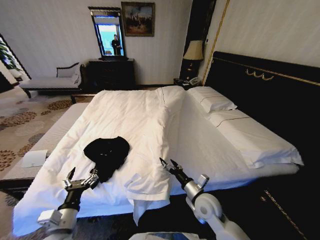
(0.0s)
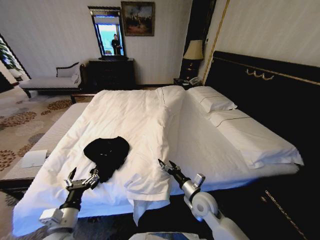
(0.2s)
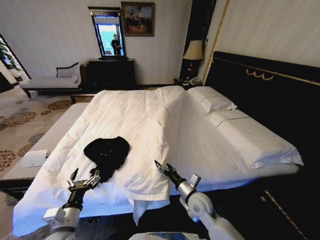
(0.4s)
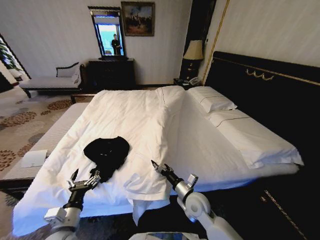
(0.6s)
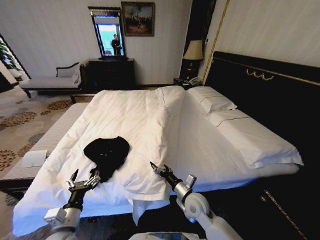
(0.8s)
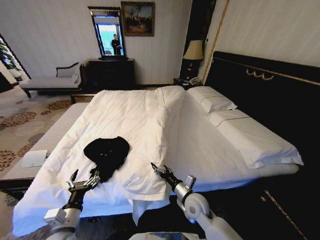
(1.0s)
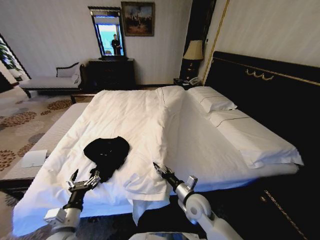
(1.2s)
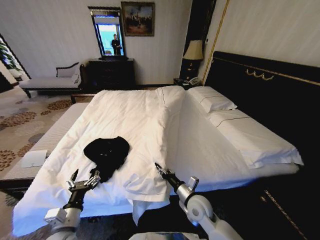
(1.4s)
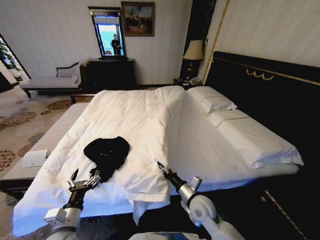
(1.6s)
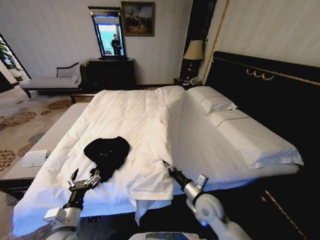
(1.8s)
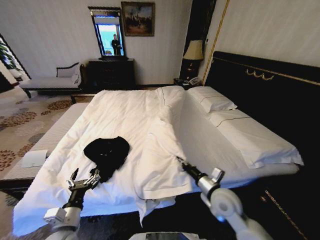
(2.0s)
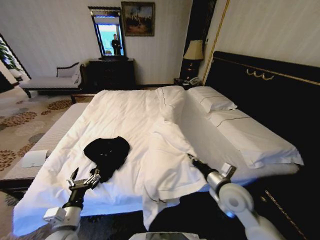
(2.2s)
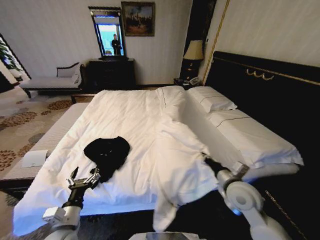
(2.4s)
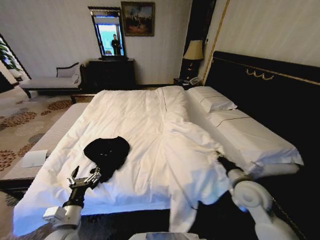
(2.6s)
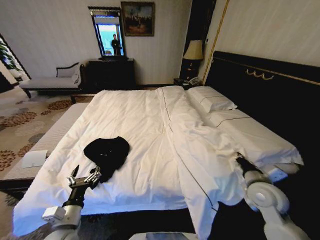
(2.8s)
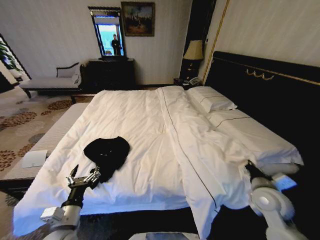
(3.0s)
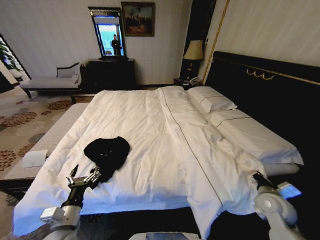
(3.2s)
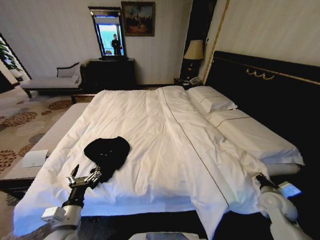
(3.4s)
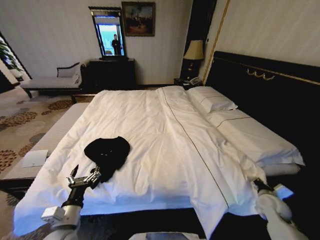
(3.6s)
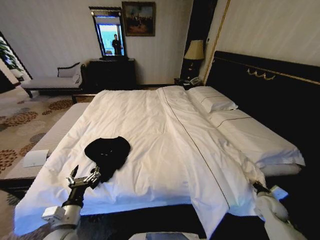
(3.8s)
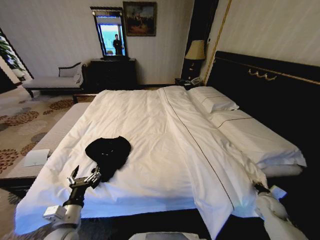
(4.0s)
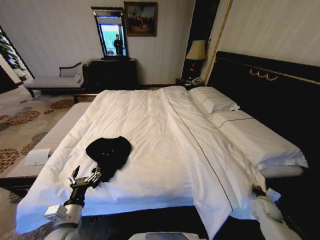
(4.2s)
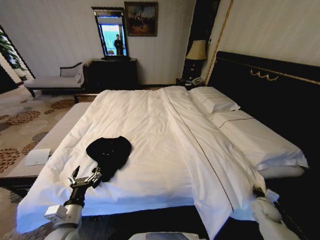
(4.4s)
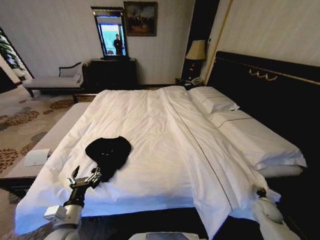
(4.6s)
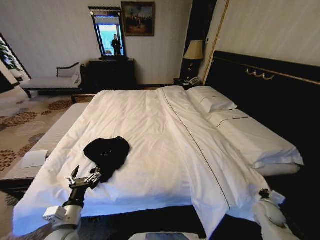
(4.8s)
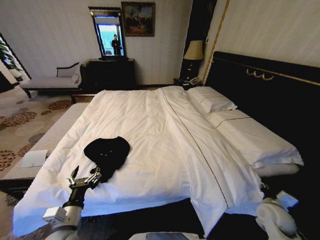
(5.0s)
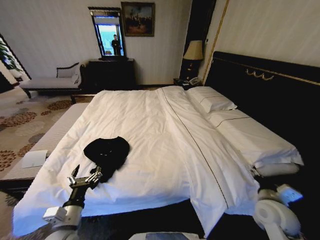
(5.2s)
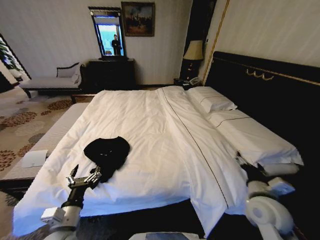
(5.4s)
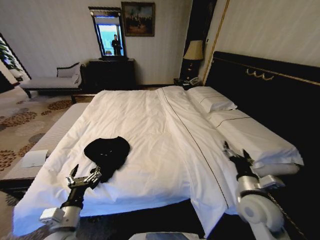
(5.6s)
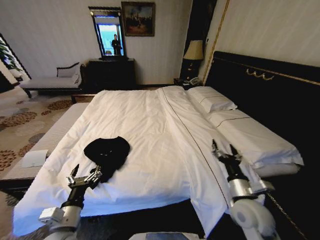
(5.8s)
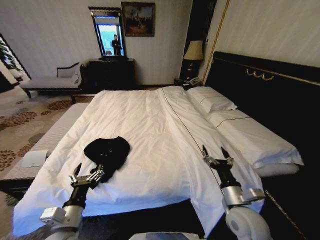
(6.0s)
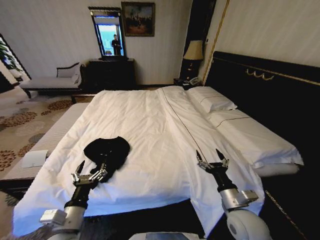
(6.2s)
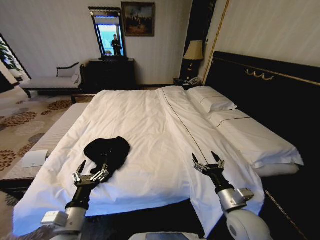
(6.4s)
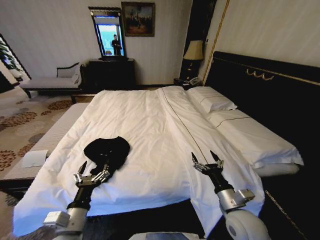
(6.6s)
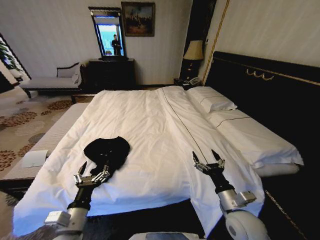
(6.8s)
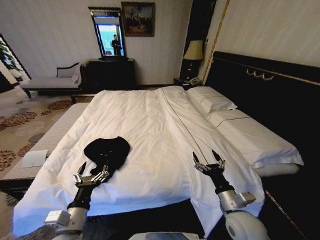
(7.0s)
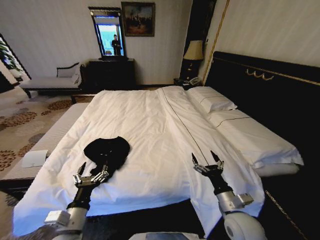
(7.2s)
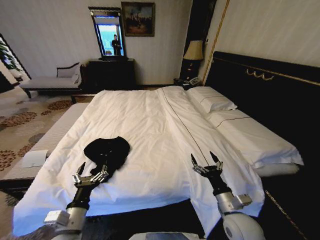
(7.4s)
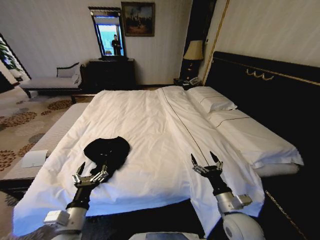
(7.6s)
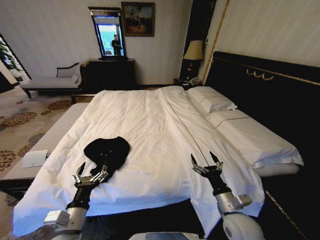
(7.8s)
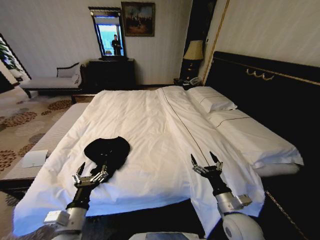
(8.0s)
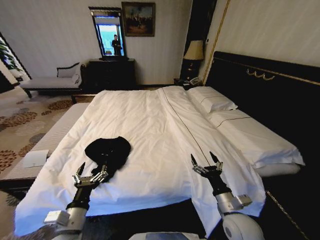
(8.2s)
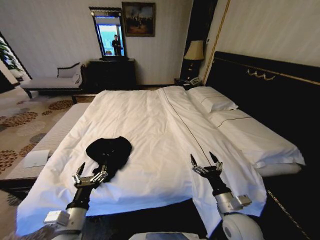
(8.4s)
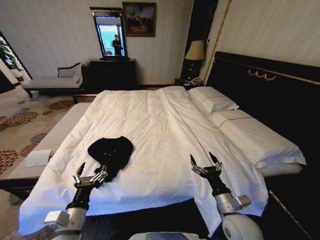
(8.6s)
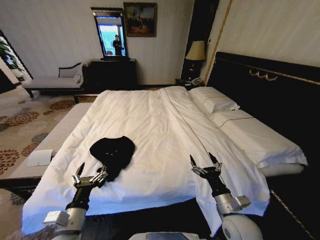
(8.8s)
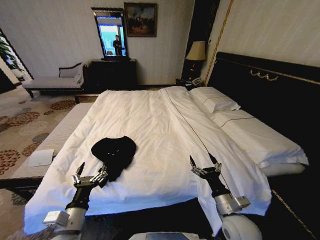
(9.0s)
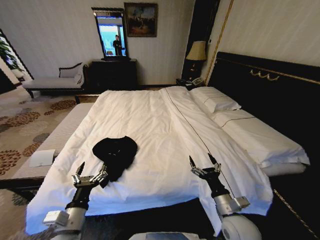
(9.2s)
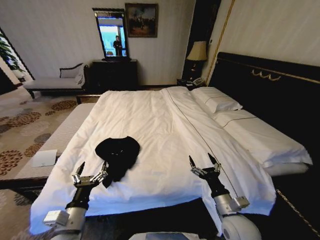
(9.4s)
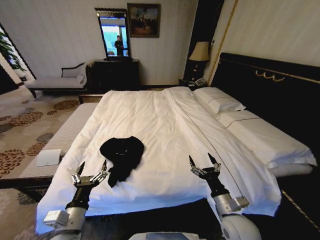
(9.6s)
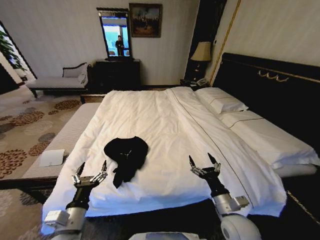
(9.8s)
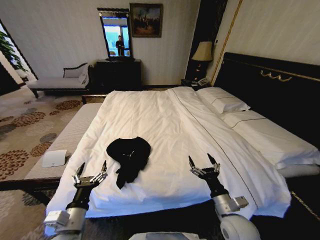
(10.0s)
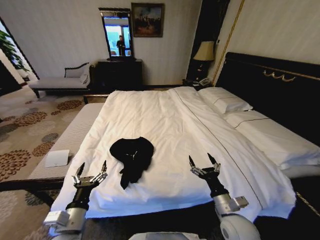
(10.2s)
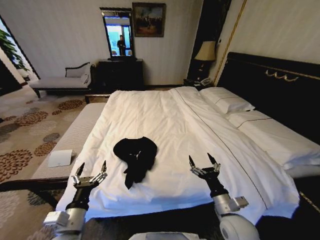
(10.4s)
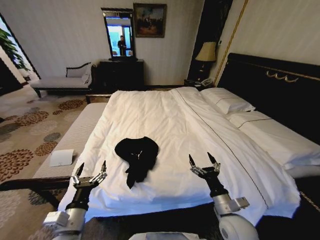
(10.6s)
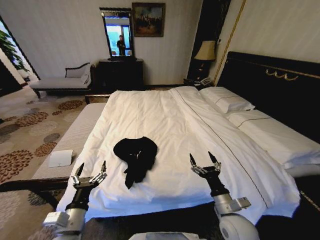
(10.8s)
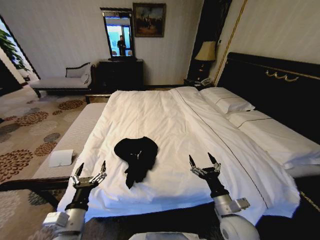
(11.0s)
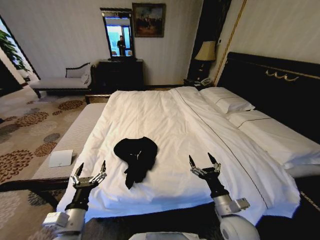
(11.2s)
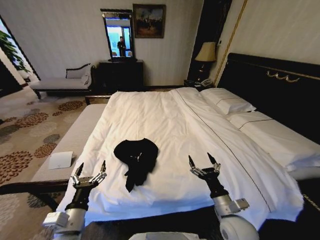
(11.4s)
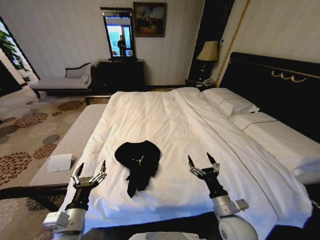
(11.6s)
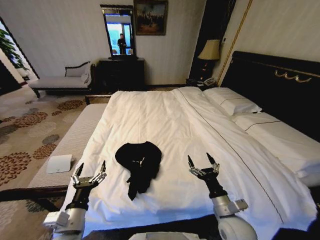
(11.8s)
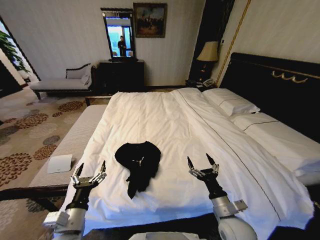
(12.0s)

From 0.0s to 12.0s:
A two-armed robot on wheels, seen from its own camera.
Task of the whole recording: Fold the clothes on the bed.
From 0.0s to 1.6s: The right gripper closes up.
From 1.6s to 3.0s: The right gripper goes approximately 25 cm to the right and upward.
From 3.0s to 4.4s: The right gripper travels downward and to the right by some 25 cm.
From 4.4s to 6.0s: The right gripper moves to the left and upward, about 30 cm, and opens.
From 6.0s to 7.6s: The grippers move only a little.
From 7.6s to 9.0s: Both grippers stay put.

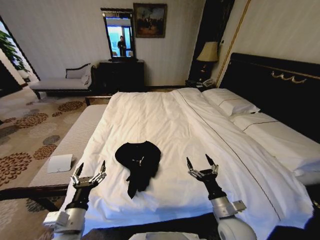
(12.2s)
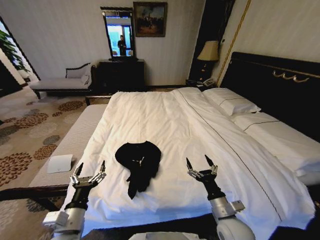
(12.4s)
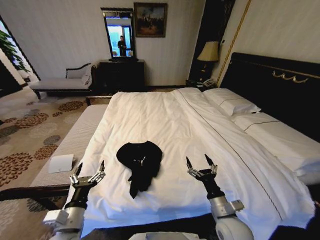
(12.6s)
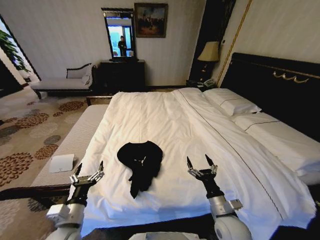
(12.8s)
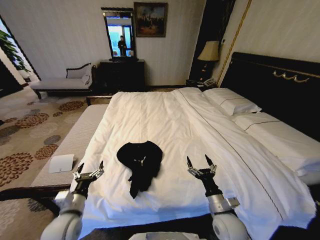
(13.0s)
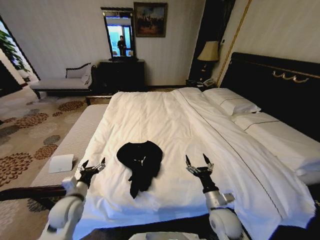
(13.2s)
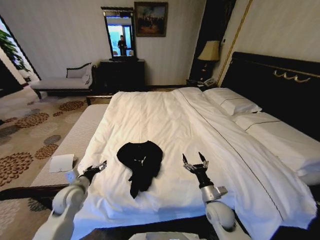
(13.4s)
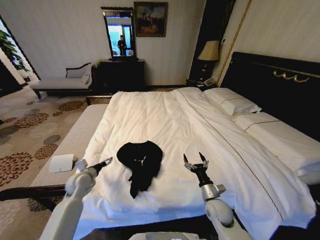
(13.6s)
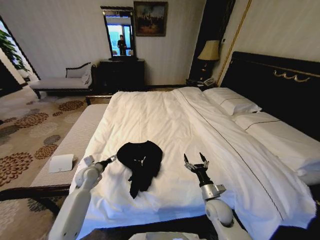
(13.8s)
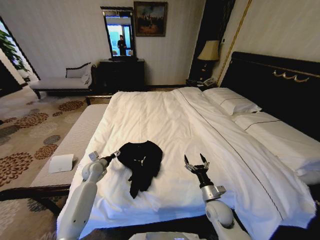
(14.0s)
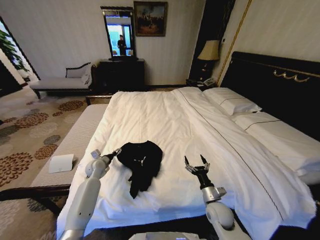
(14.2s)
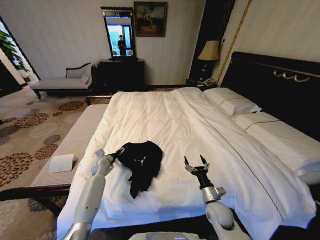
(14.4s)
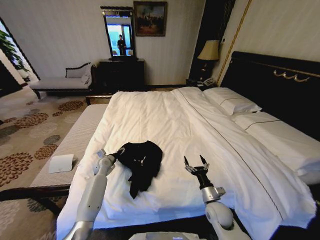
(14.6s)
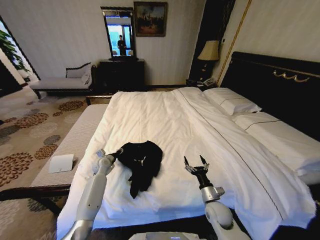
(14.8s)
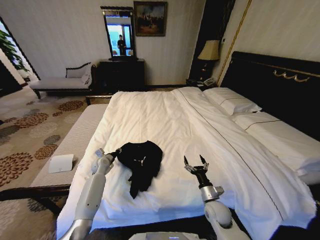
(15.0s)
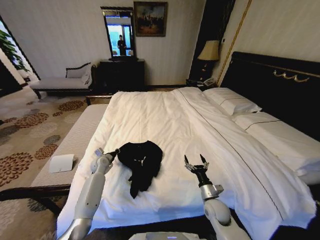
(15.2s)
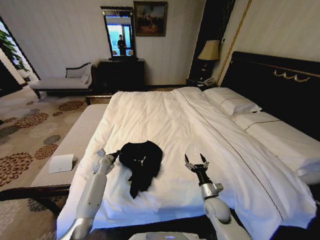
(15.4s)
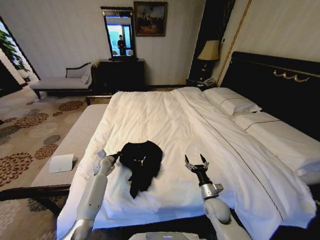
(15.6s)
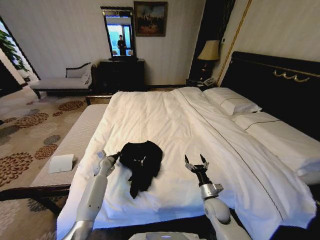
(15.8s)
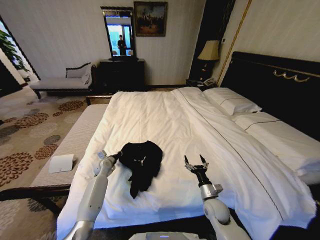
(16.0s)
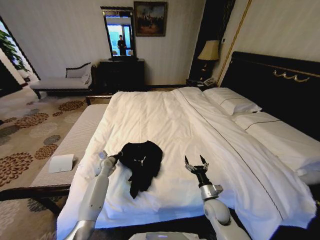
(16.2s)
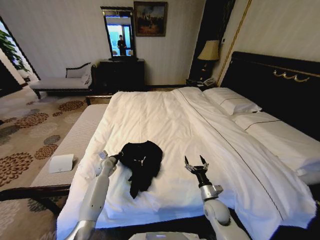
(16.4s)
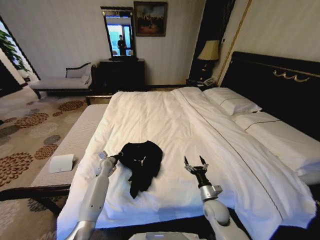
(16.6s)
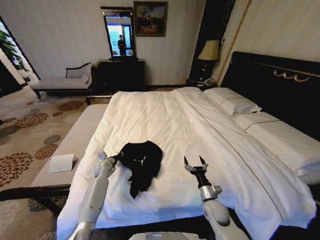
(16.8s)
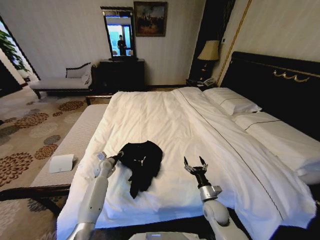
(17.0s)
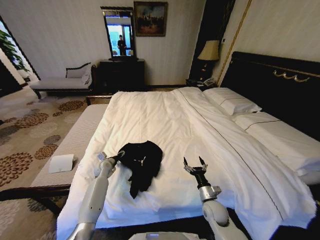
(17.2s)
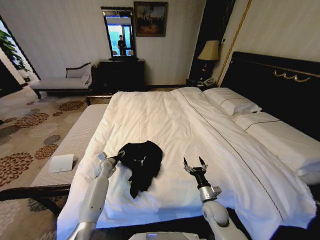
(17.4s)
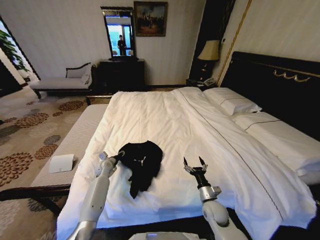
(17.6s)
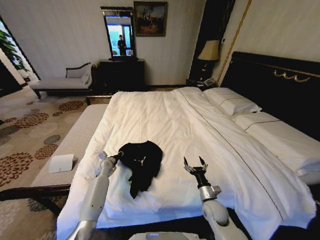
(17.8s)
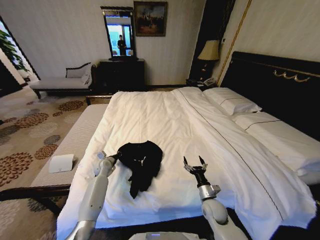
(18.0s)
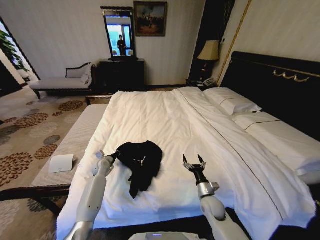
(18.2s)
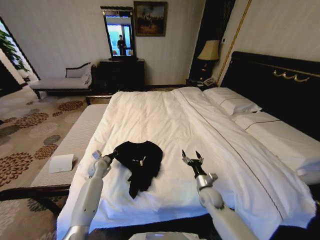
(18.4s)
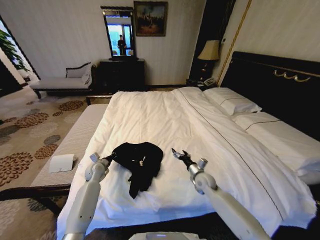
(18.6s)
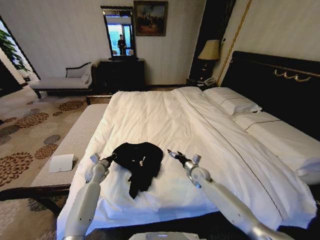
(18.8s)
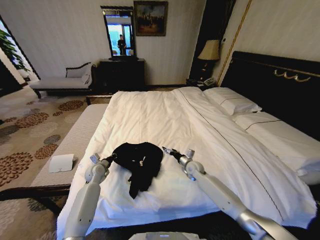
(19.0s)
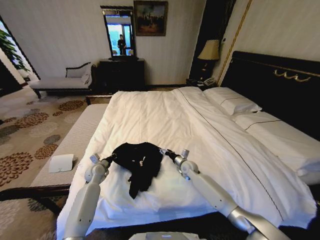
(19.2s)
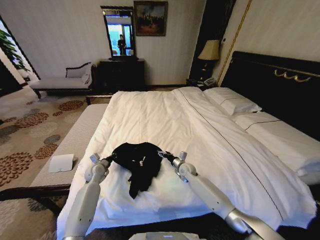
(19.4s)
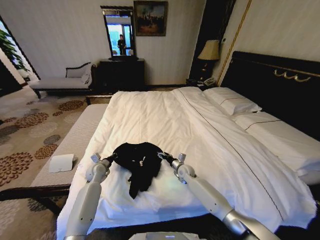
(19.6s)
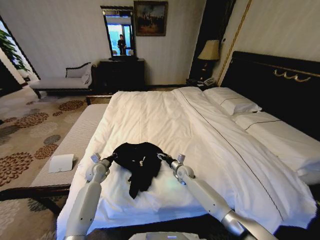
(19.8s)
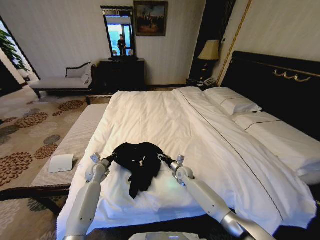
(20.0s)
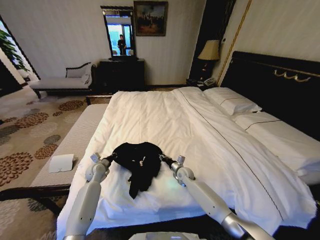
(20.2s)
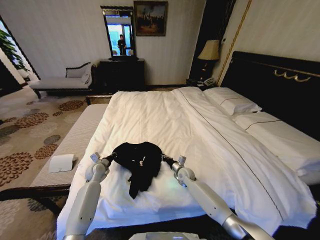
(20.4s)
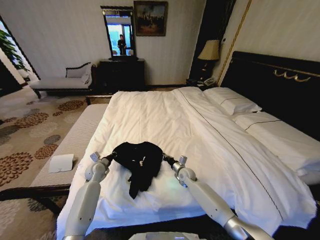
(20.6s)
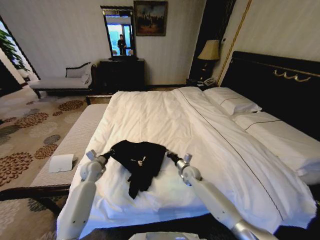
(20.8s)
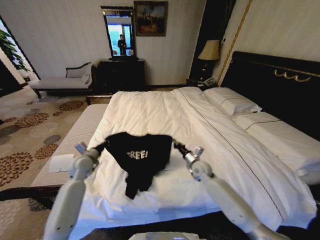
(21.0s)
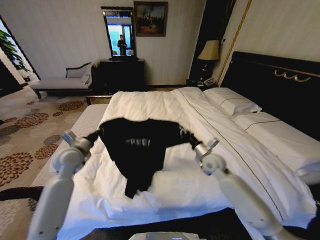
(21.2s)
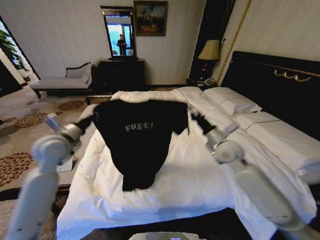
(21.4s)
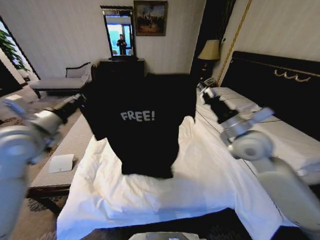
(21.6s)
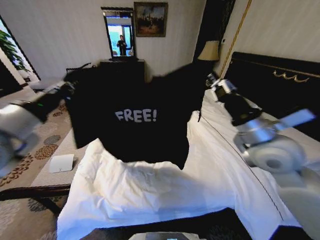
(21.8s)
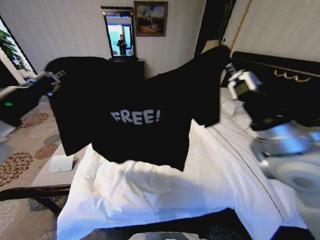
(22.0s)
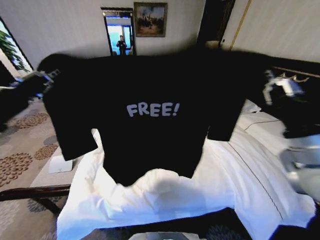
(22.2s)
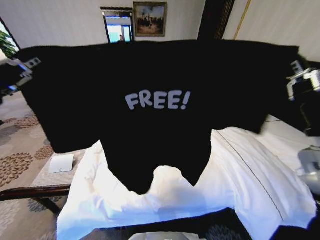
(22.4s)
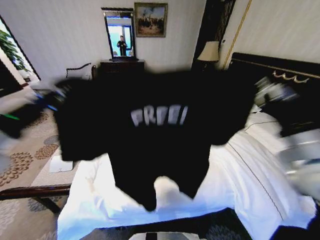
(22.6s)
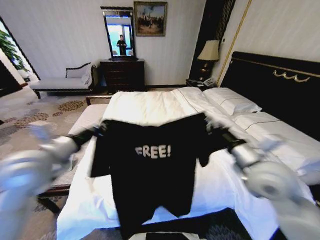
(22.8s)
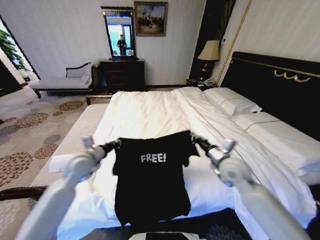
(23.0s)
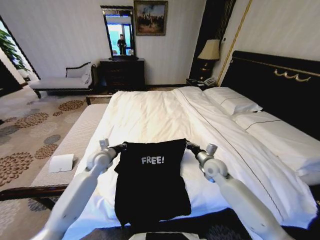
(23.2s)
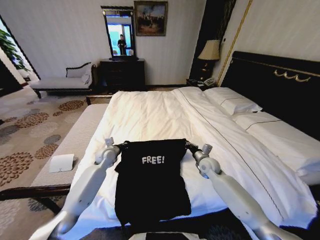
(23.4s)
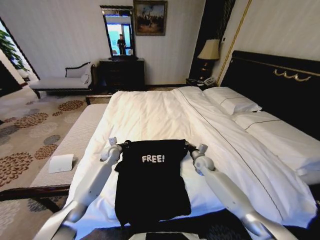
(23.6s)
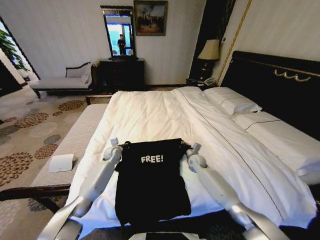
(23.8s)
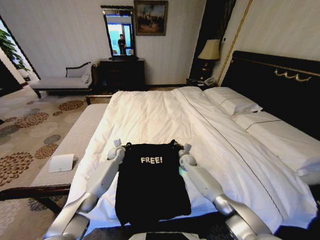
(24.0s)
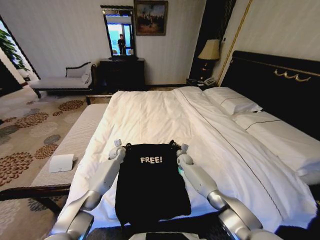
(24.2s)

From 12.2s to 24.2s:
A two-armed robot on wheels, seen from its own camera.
Task of the whole recording: Fold the clothes on the bed.
From 12.2s to 13.8s: The left gripper shifts about 25 cm forward. The right gripper is displaced downward and forward by about 10 cm.
From 13.8s to 15.2s: The left gripper goes approximately 10 cm forward, and closes up.
From 15.2s to 16.6s: The grippers stay close to where they were, moving slightly.
From 16.6s to 18.2s: The left gripper opens and closes again.
From 18.2s to 19.8s: The right gripper heads forward and to the left, covering about 20 cm.
From 19.8s to 21.2s: The left gripper goes about 20 cm upward. The right gripper heads upward and to the right, covering some 20 cm, and closes up.
From 21.2s to 22.6s: The grippers both shift upward and backward by roughly 30 cm.
From 22.6s to 24.2s: The grippers both shift downward and forward by approximately 50 cm.
